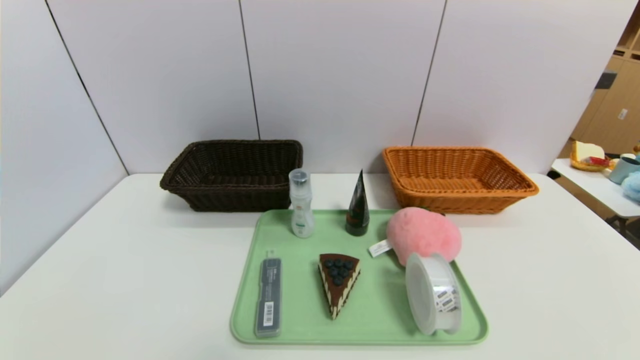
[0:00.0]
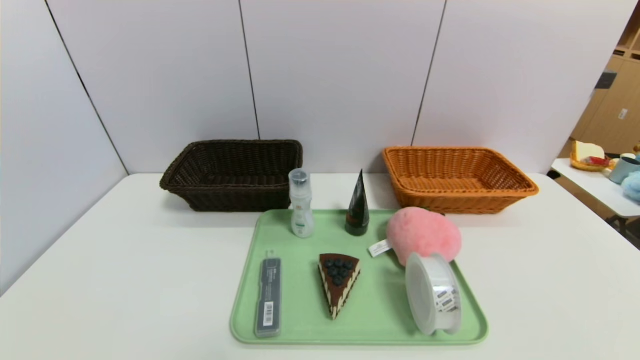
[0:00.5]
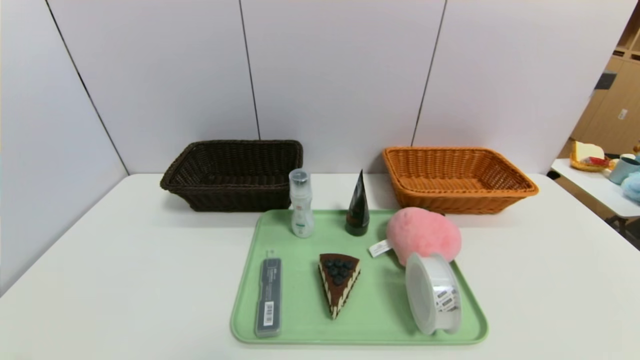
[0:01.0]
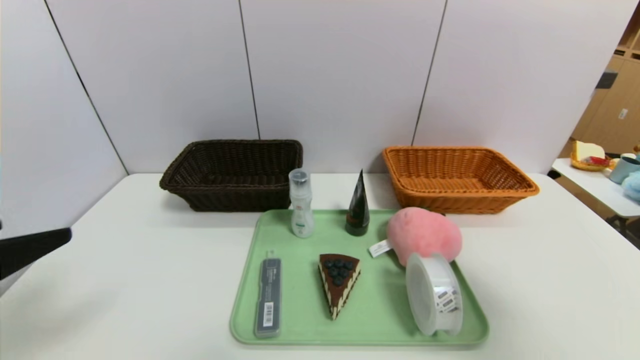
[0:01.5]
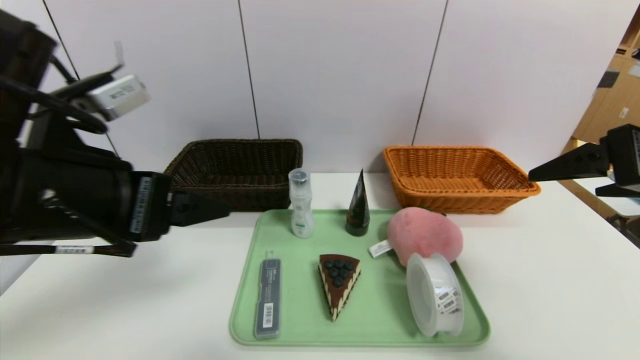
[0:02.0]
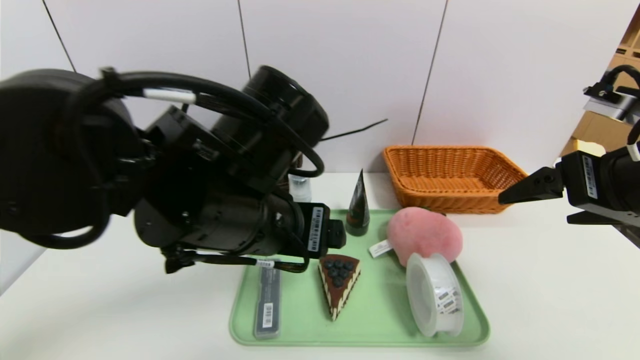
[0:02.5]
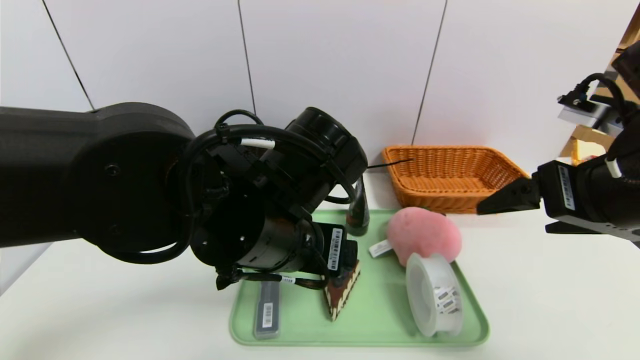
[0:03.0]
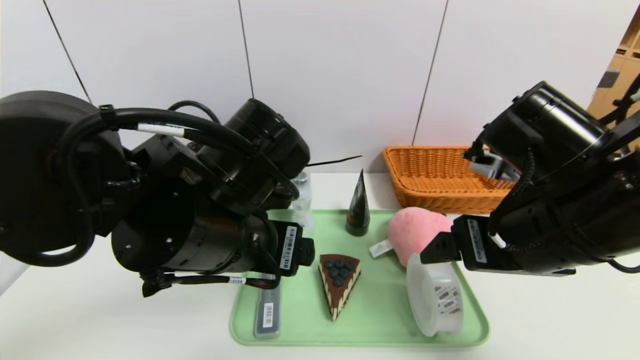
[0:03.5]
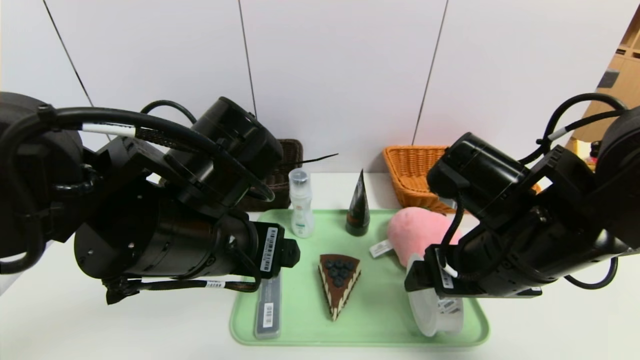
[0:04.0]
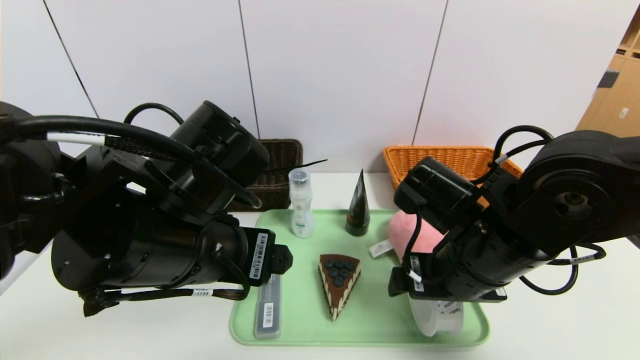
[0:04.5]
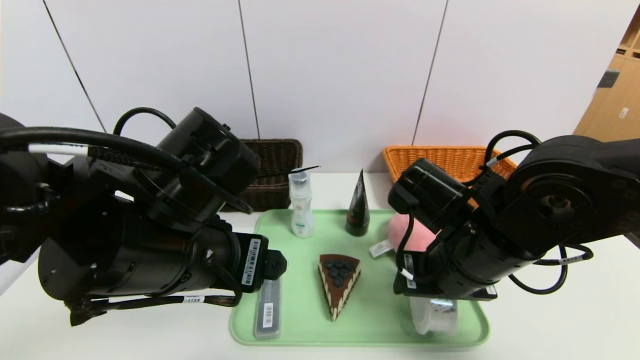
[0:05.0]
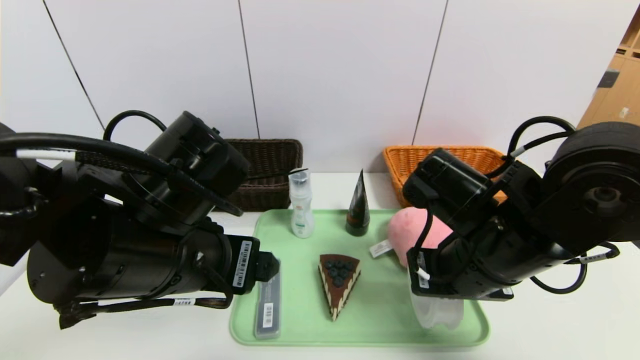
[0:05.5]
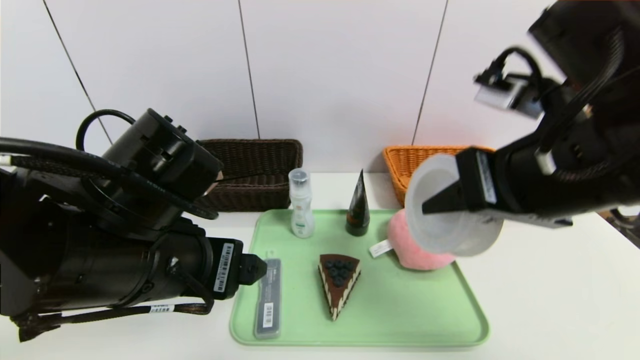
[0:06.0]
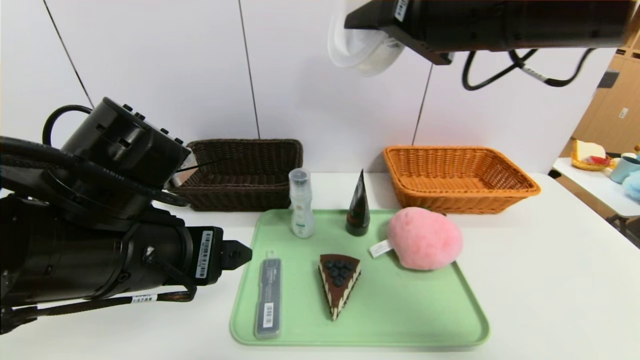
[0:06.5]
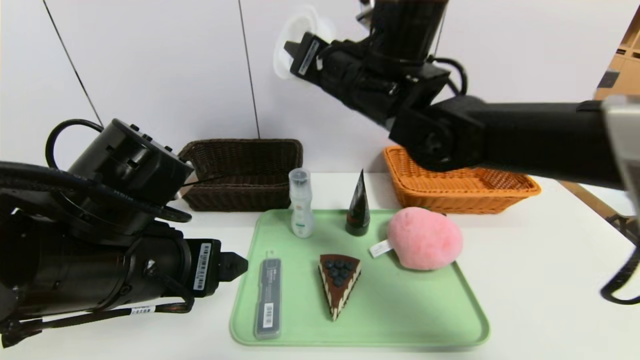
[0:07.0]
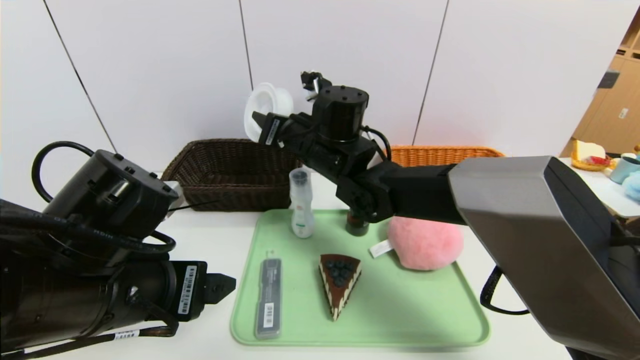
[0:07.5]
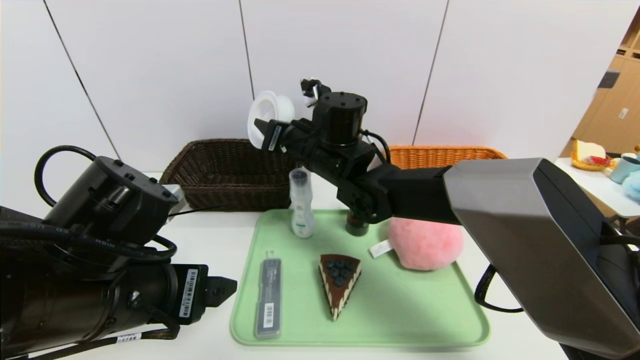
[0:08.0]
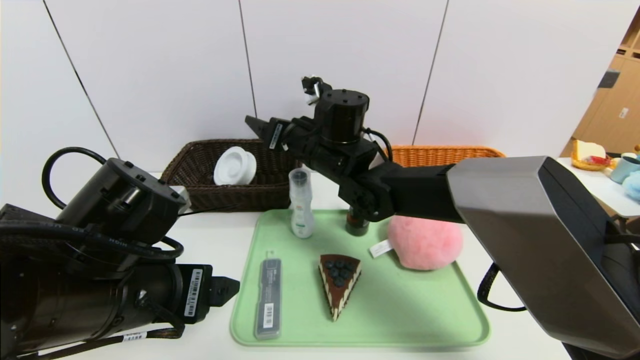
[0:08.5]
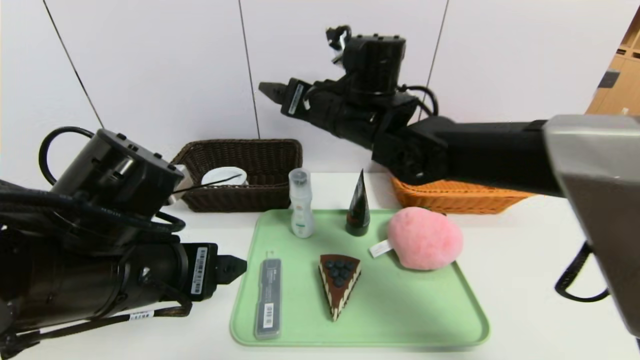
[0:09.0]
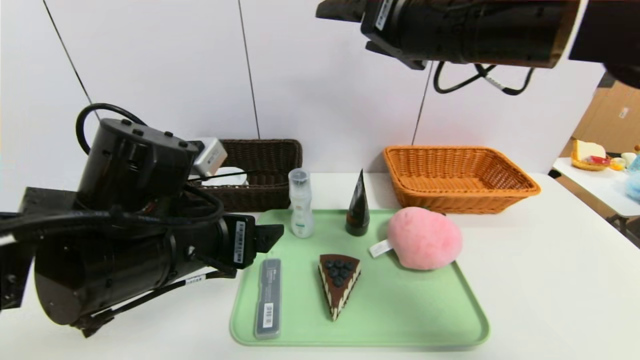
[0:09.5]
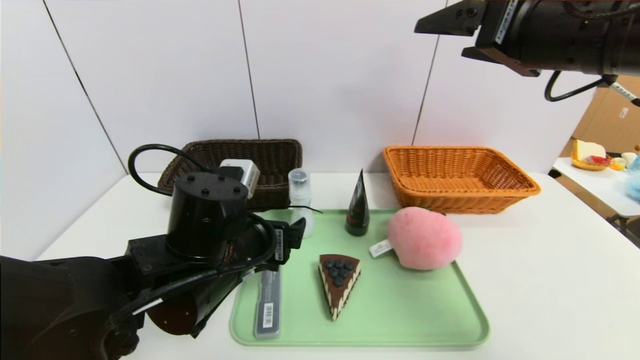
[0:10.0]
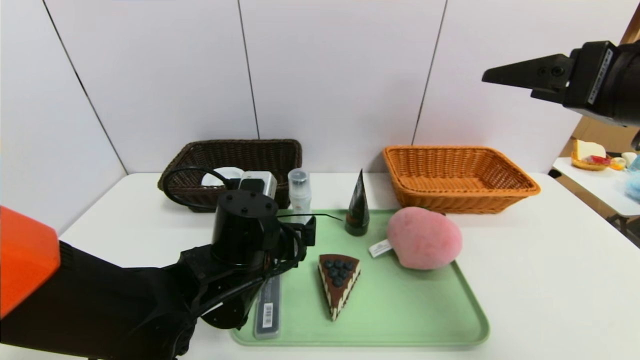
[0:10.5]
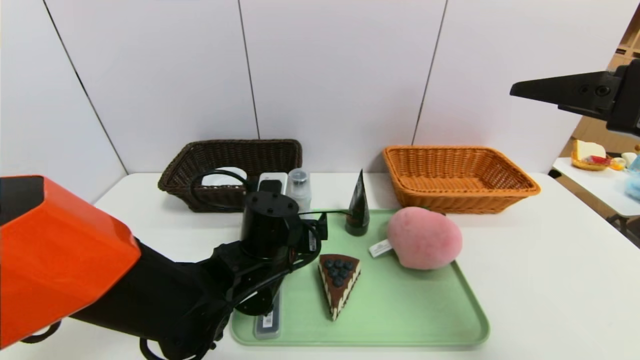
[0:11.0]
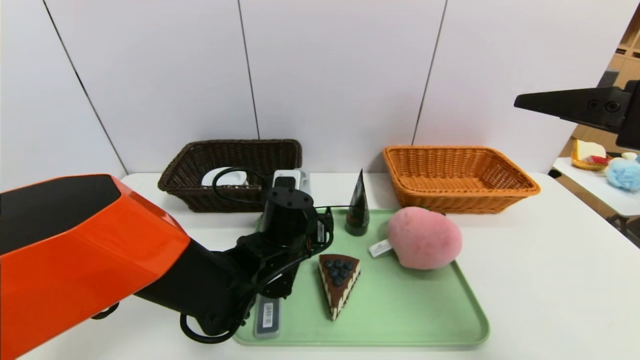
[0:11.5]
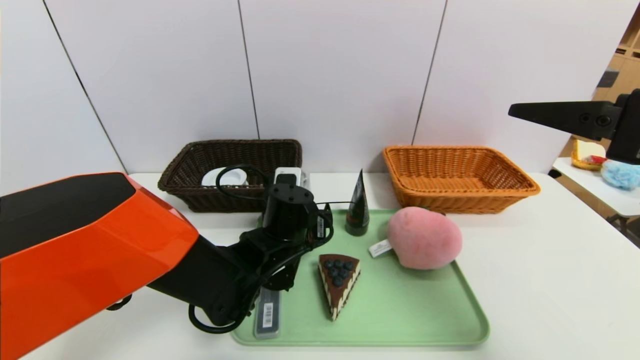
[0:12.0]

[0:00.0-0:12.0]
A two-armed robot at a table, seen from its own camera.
Task of the whole recording: place the food in the right basket with the right gripper, and place the non food items in the left basket with the left gripper.
Step, 0:00.0 to 0:09.0: Grasp the tape and put it in the left basket.
0:00.0 to 0:02.0: The right gripper shifts some 30 cm upward and forward. Meanwhile the left gripper moves upward, forward and to the right, roughly 30 cm.
0:02.0 to 0:04.0: The left gripper goes about 10 cm to the right and downward; the right gripper is displaced to the left and downward by some 15 cm.
0:04.0 to 0:06.0: The right gripper heads upward, covering roughly 10 cm, and closes.
0:06.0 to 0:08.0: The right gripper moves forward, to the left and downward, about 30 cm.
0:08.0 to 0:10.0: The left gripper goes some 10 cm to the right and forward. The right gripper shifts approximately 30 cm to the right, upward and backward, and opens.
0:10.0 to 0:12.0: The left gripper moves forward, to the right and downward, roughly 10 cm, while the right gripper moves backward, to the right and downward, about 10 cm.

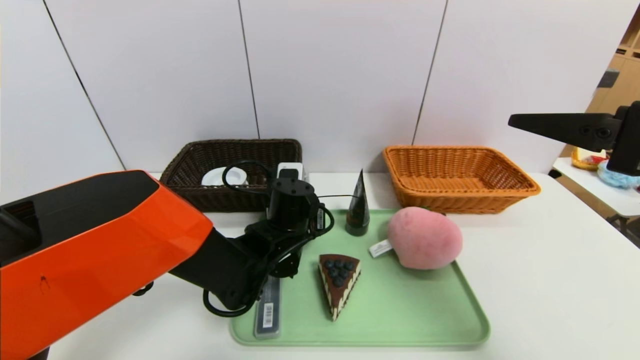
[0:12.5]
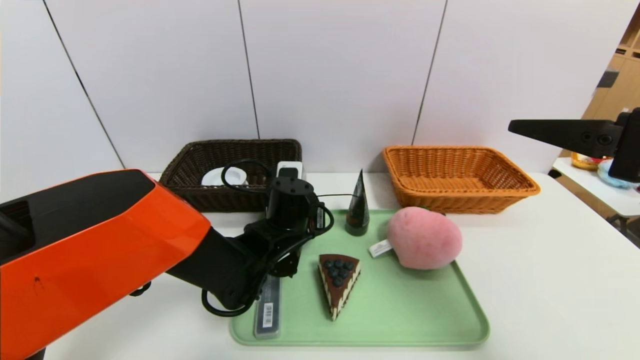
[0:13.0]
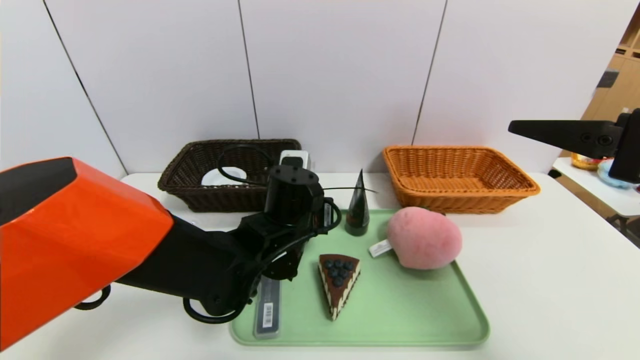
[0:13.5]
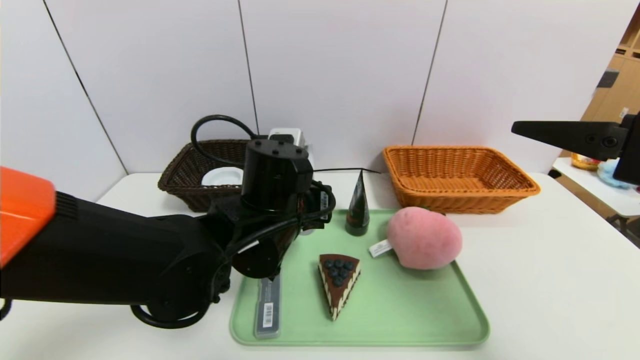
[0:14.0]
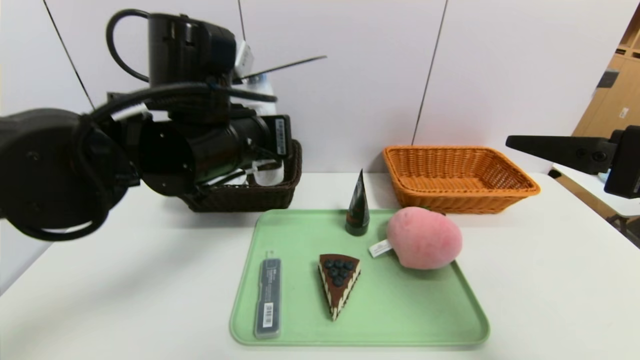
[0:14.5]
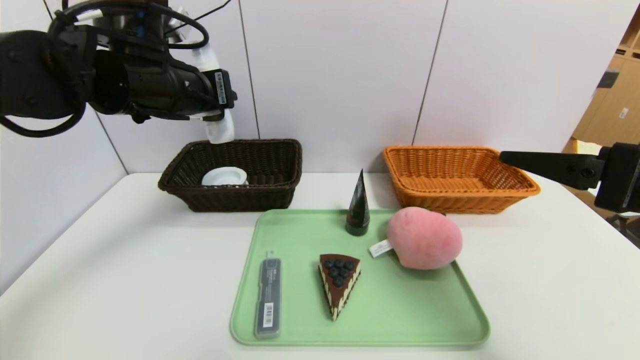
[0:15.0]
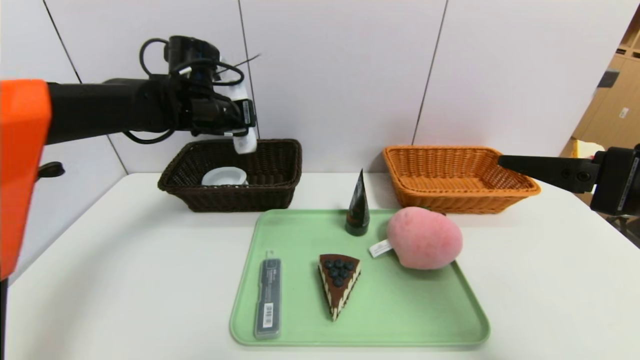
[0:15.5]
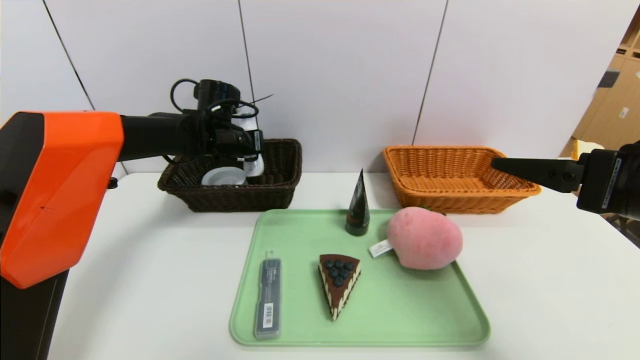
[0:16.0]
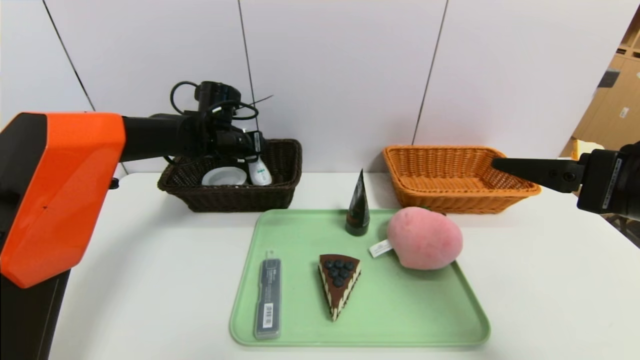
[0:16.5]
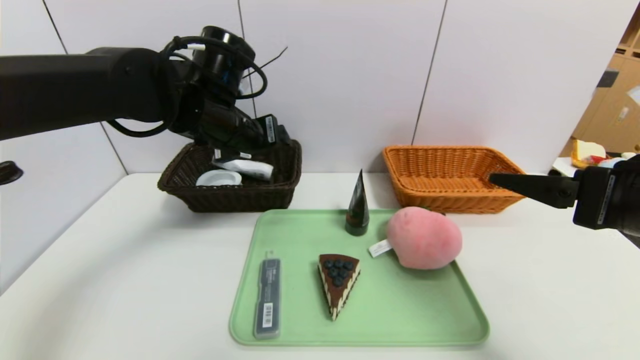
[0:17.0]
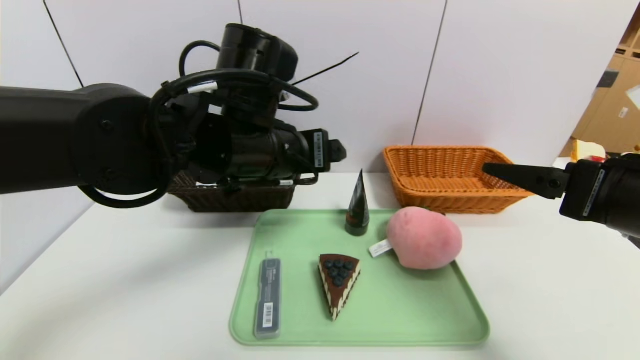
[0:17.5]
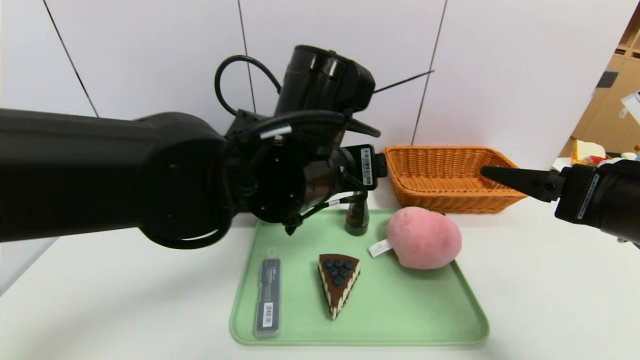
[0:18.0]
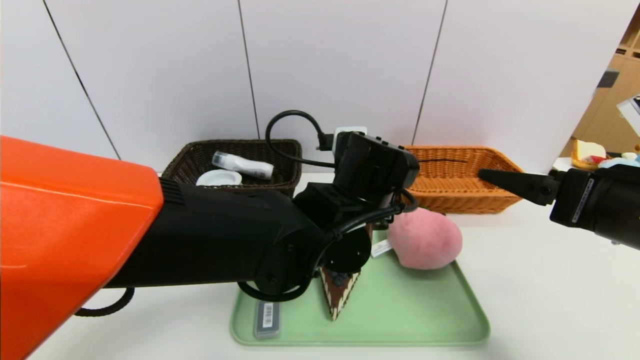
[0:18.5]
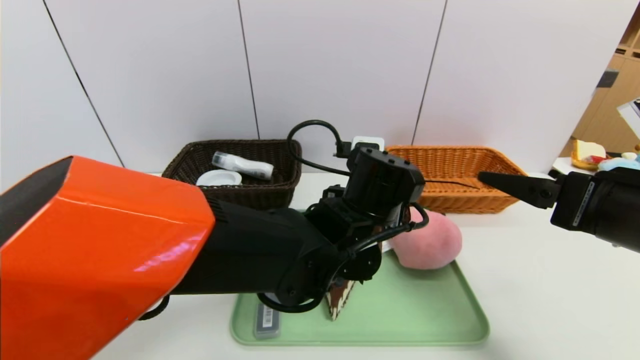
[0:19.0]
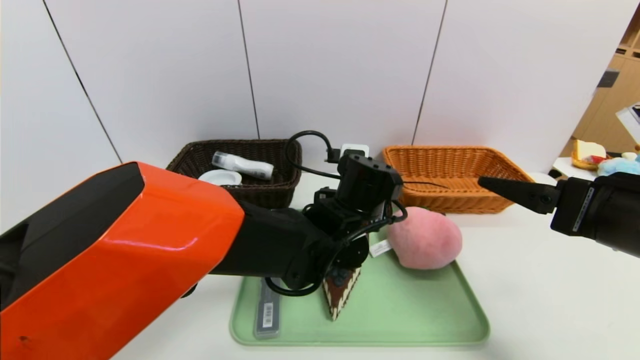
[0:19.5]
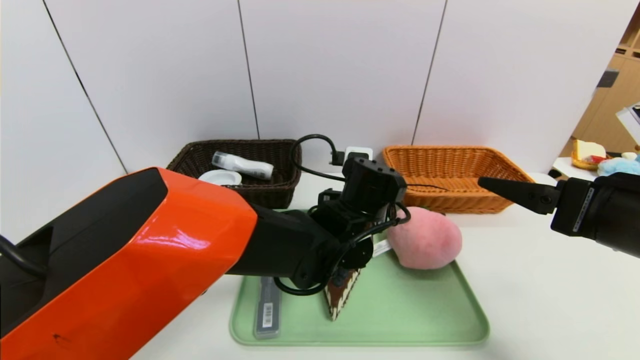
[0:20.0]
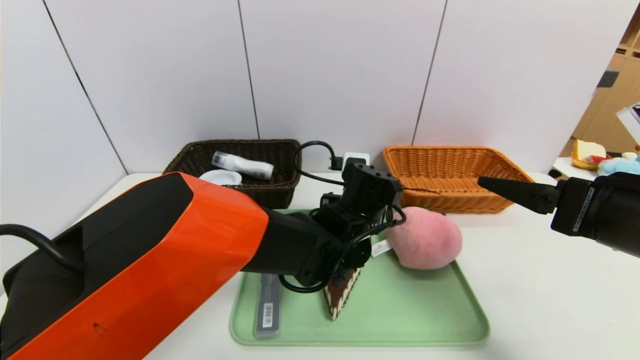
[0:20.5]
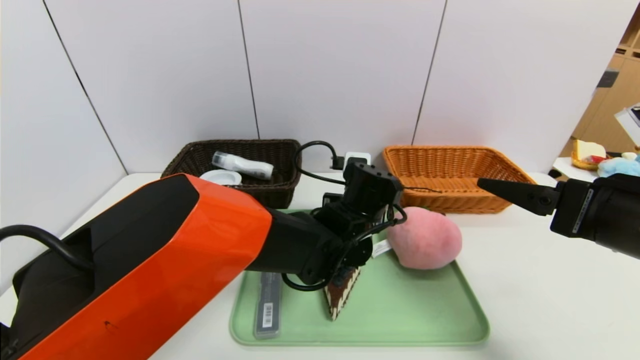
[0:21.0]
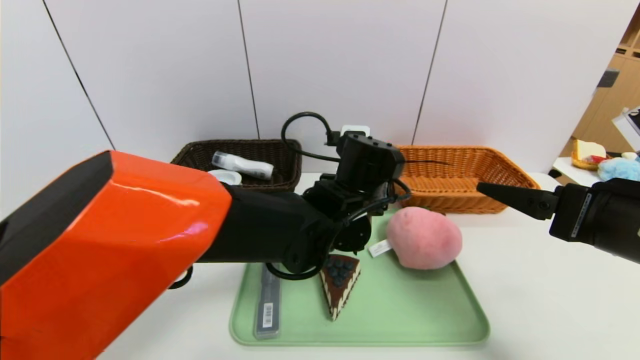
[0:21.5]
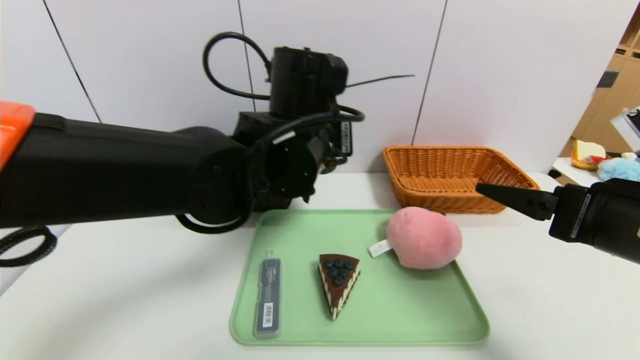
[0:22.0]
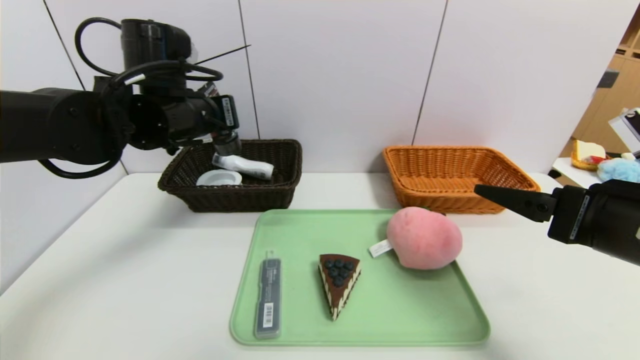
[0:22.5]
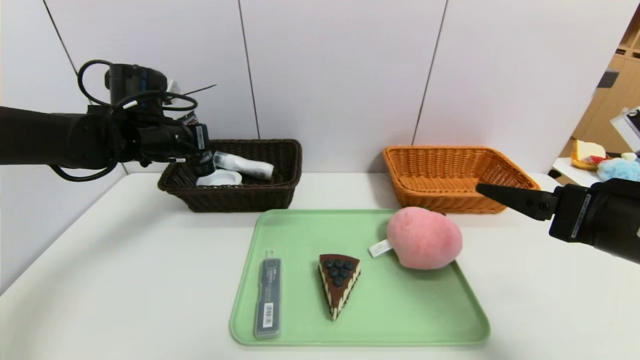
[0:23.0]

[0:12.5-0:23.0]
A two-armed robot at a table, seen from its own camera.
Task of the whole recording: place the food in the right basket with the right gripper, and place the non food items in the left basket with the left gripper.
Step, 0:12.5 to 0:17.0: Grasp the washing liquid and put it in the left basket.
0:12.5 to 0:14.5: The left gripper heads upward, covering some 20 cm.
0:14.5 to 0:16.5: The left gripper heads forward and downward, covering approximately 20 cm, and opens its fingers.
0:16.5 to 0:19.0: The left gripper is displaced to the right and backward by approximately 30 cm.
0:19.0 to 0:21.0: The left gripper heads forward, covering approximately 5 cm, and closes up.
0:21.0 to 0:23.0: The left gripper heads to the left, covering some 30 cm.
